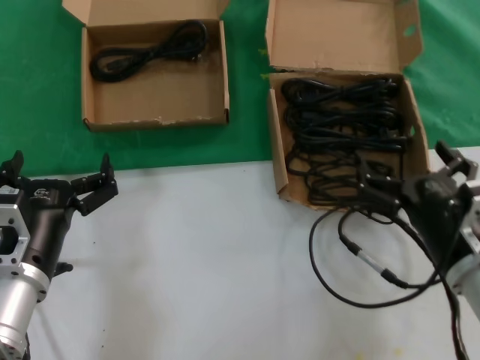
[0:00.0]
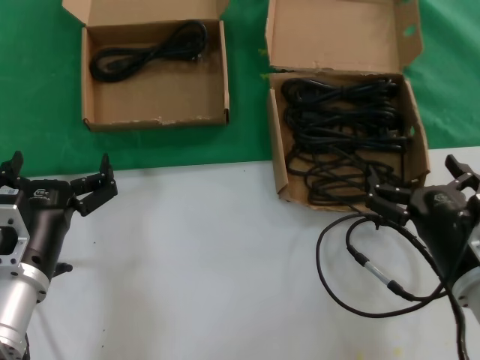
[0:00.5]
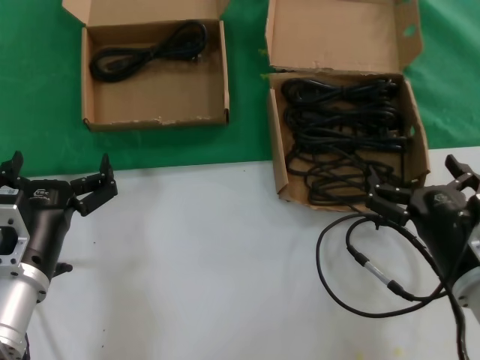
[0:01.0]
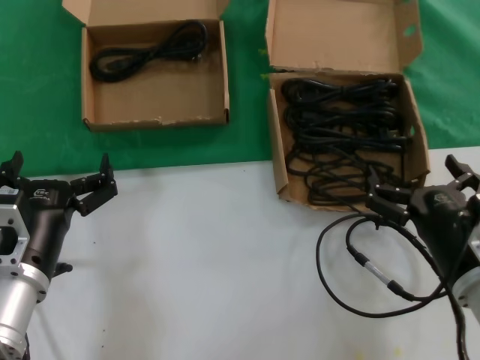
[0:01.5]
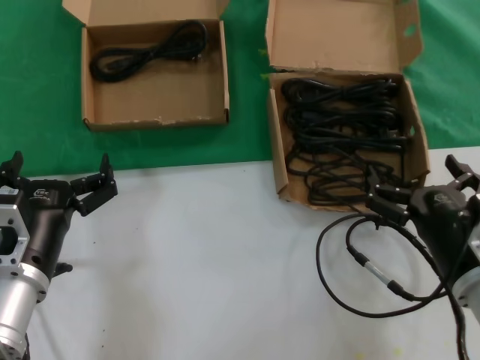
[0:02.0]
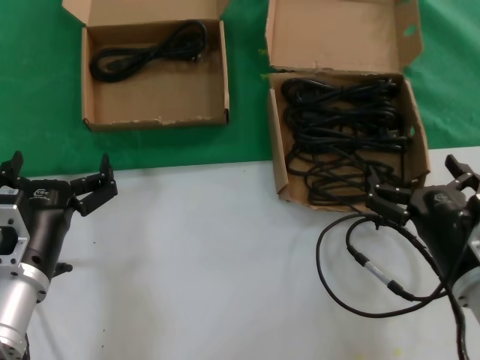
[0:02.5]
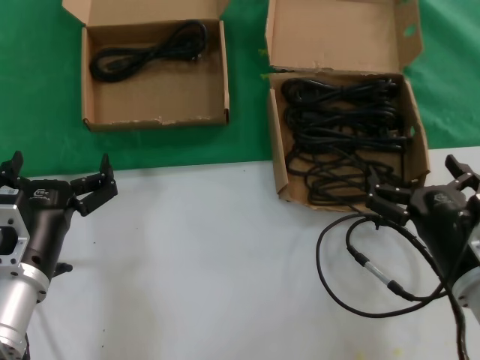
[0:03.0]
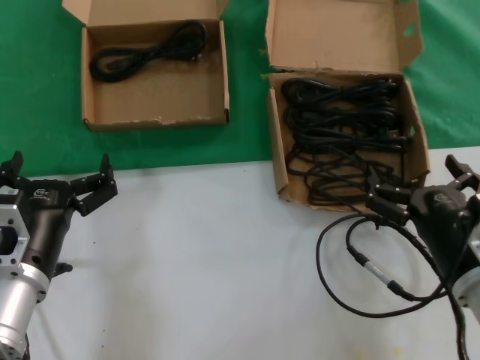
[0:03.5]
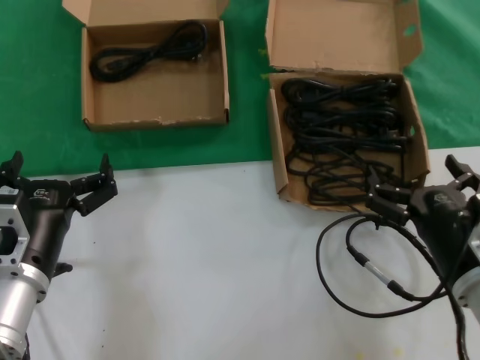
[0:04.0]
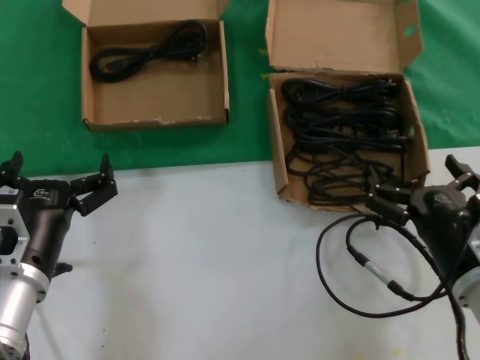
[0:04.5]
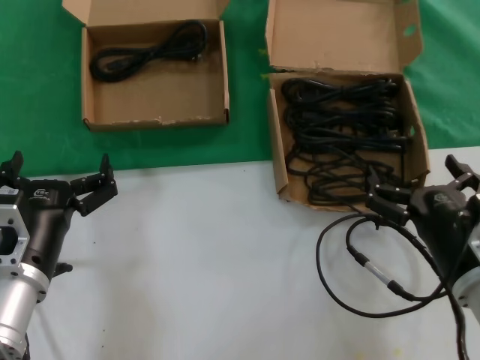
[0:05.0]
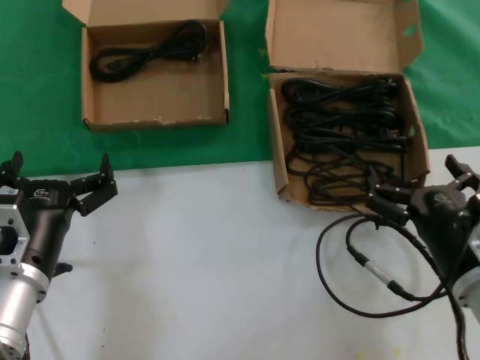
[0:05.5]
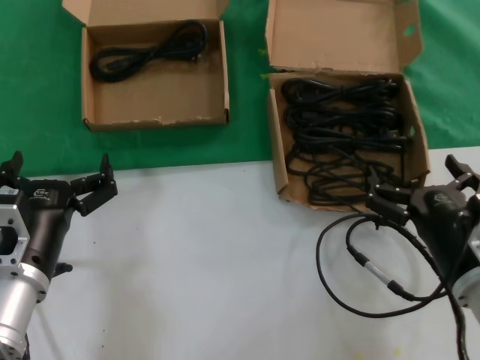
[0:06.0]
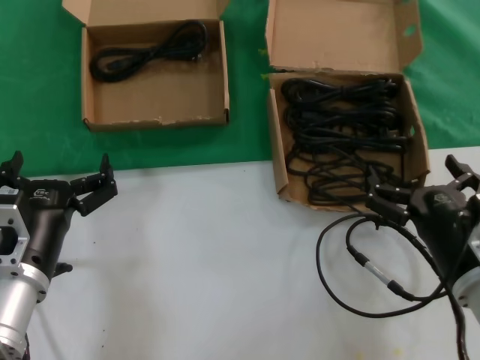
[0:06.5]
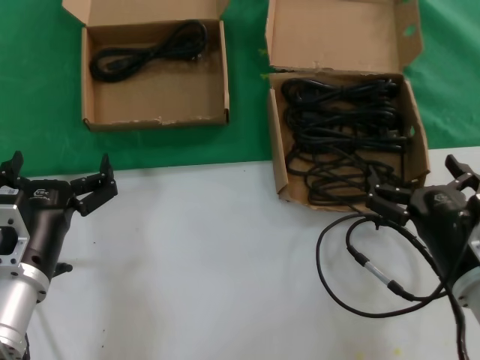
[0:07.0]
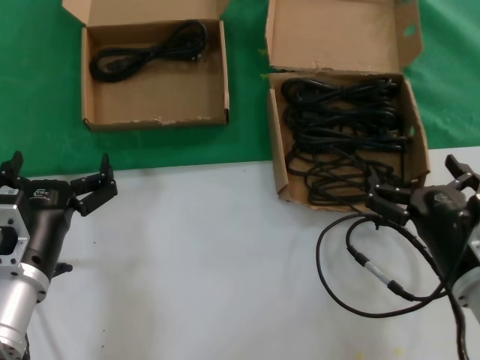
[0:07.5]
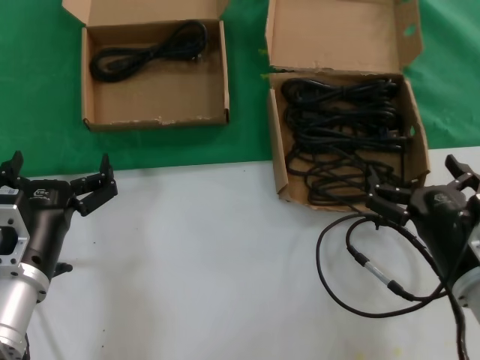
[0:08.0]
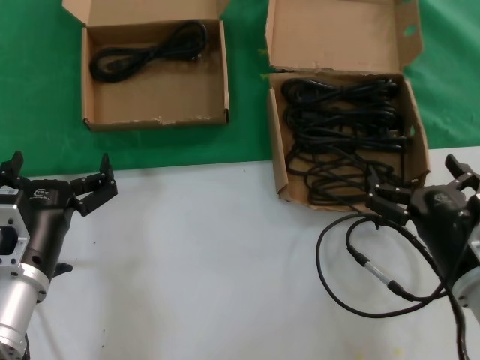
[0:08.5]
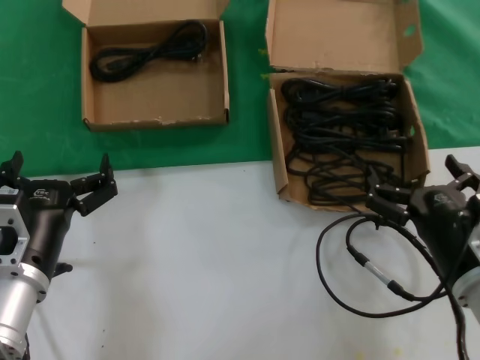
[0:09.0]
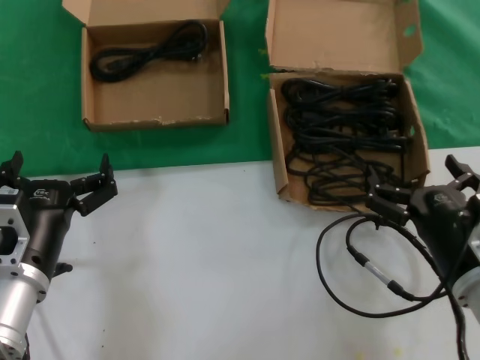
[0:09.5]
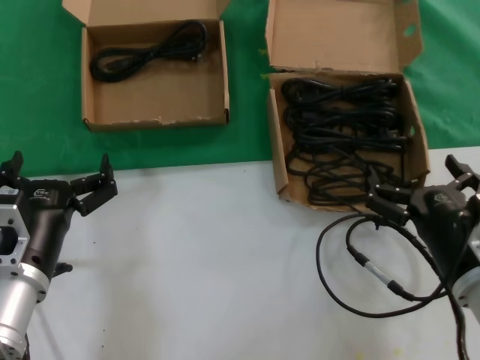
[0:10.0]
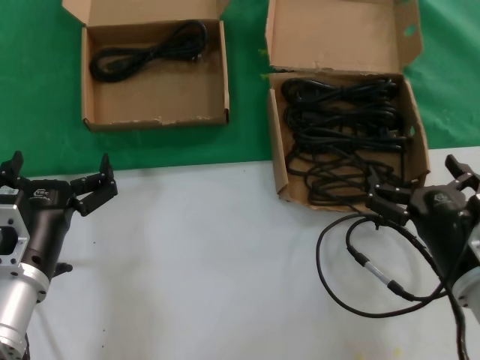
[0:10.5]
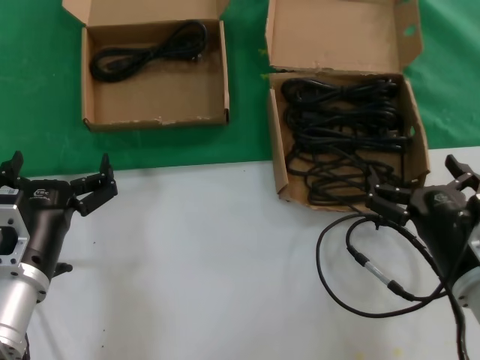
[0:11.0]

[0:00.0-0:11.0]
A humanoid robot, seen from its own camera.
Task of the whole recording: take the parts from the box containing them and put them into an empty box.
0:00.0 to 0:02.0: The hands move only a little.
0:02.0 to 0:11.0: Both hands stay put.

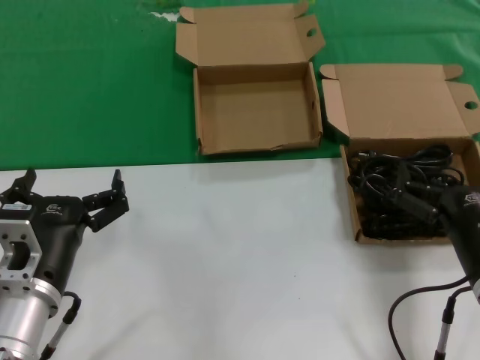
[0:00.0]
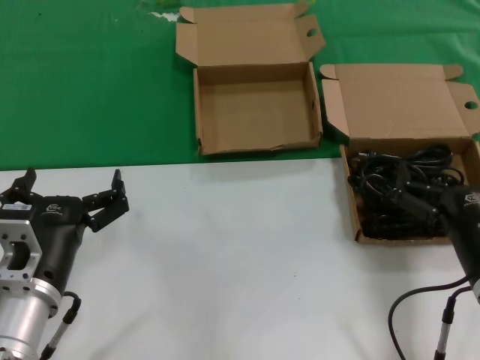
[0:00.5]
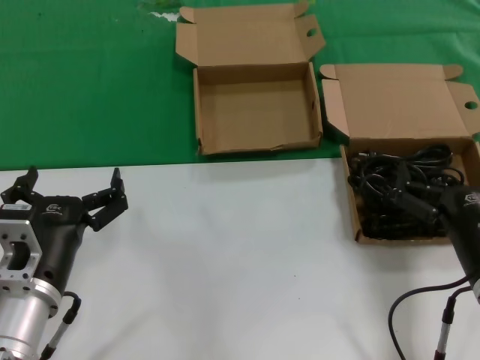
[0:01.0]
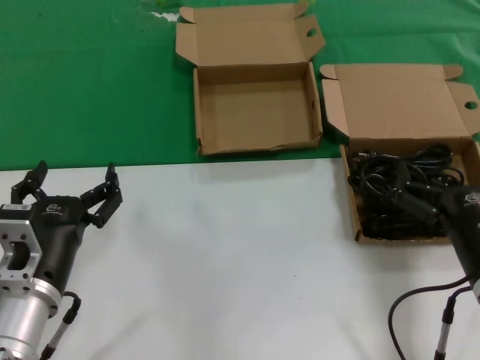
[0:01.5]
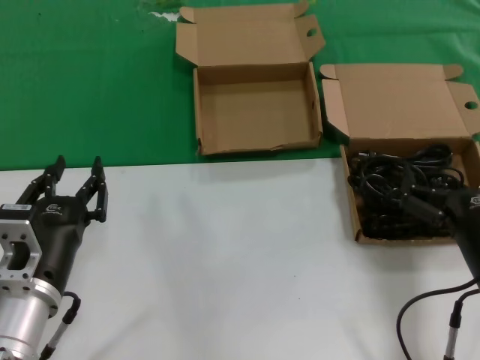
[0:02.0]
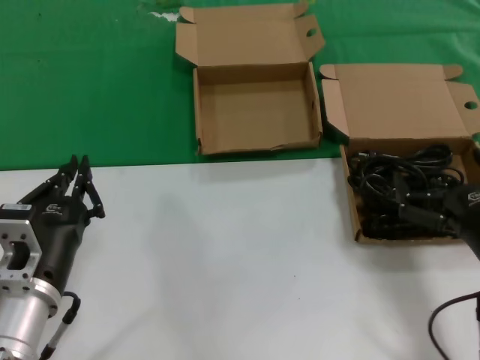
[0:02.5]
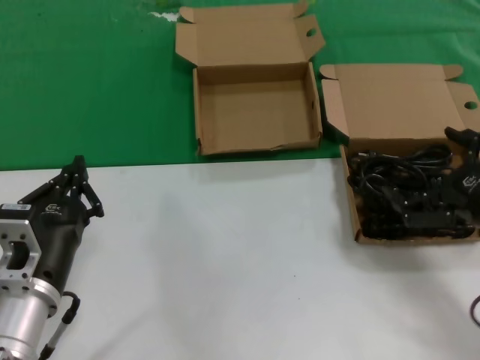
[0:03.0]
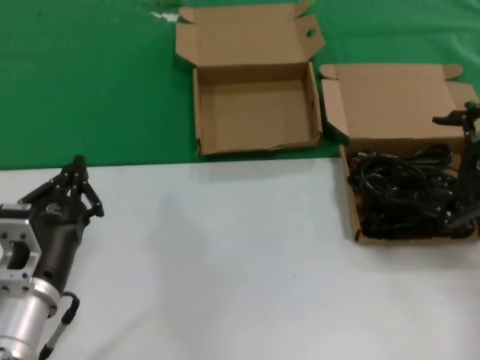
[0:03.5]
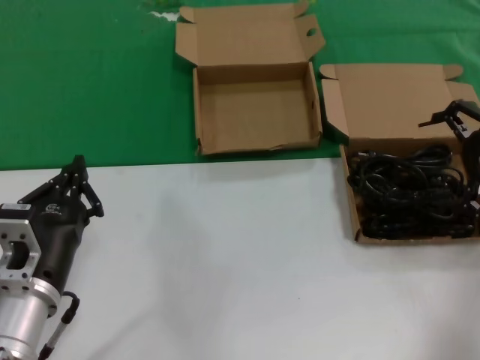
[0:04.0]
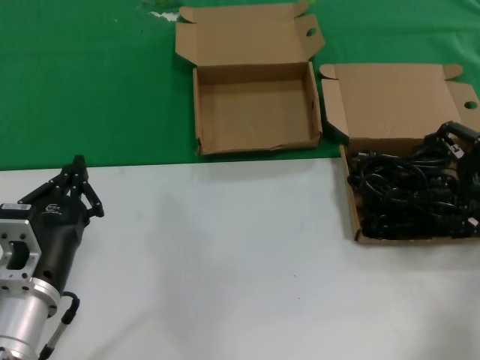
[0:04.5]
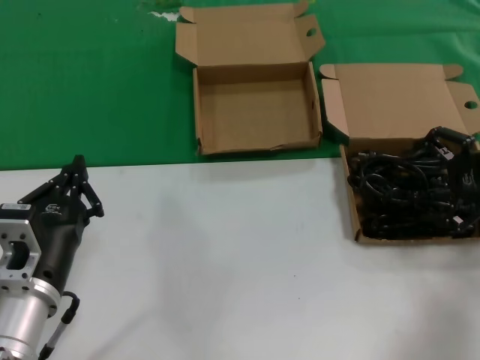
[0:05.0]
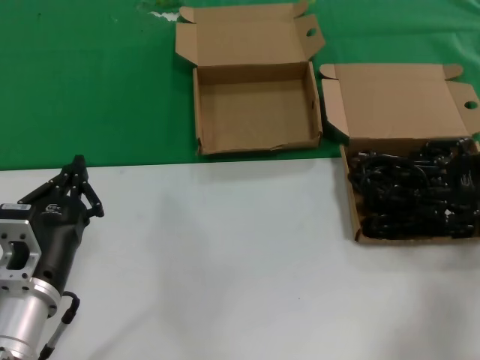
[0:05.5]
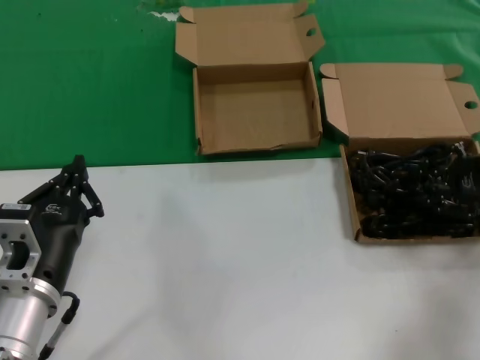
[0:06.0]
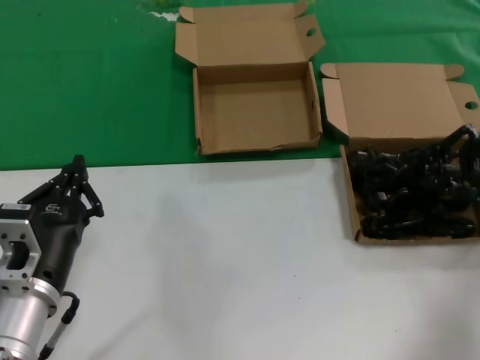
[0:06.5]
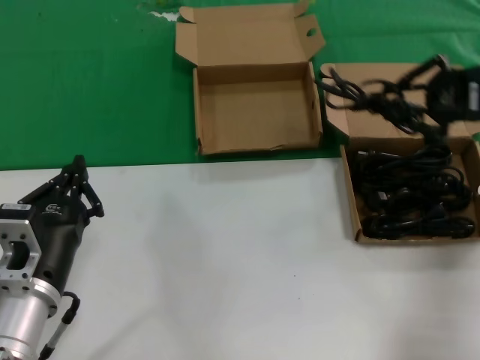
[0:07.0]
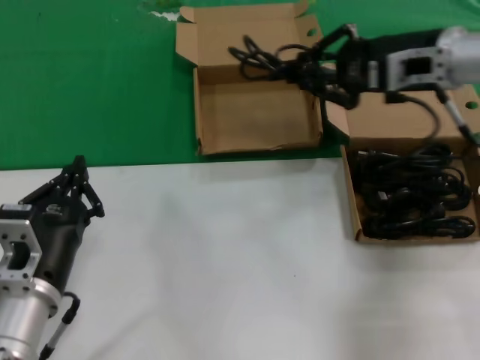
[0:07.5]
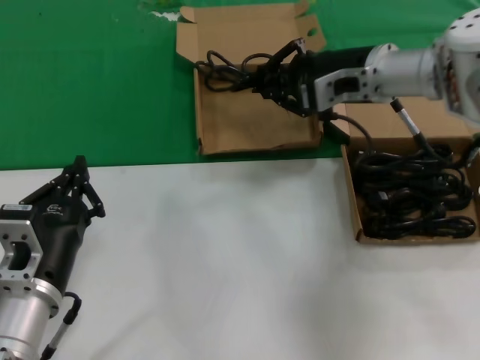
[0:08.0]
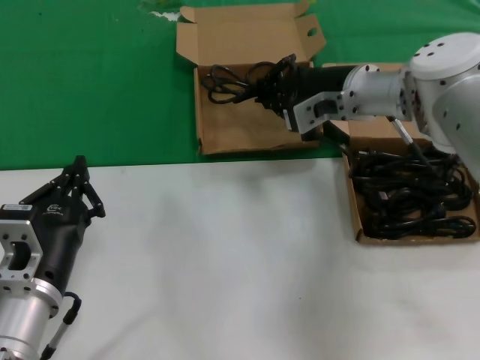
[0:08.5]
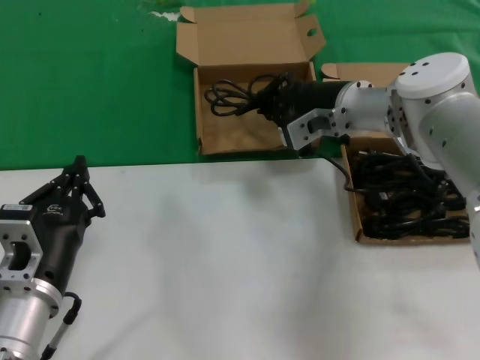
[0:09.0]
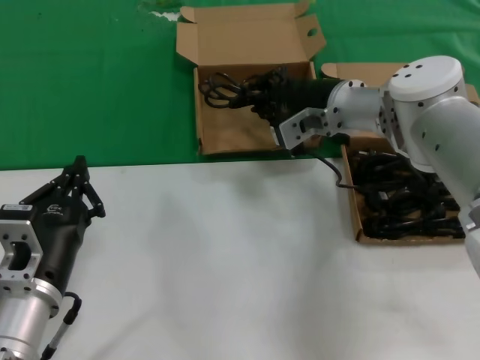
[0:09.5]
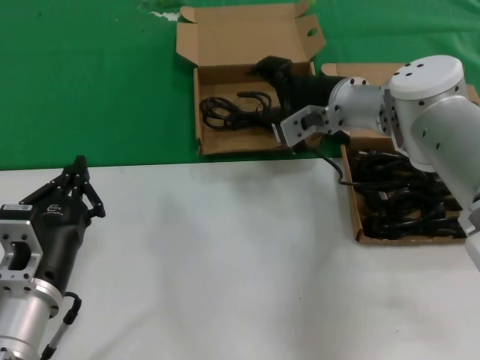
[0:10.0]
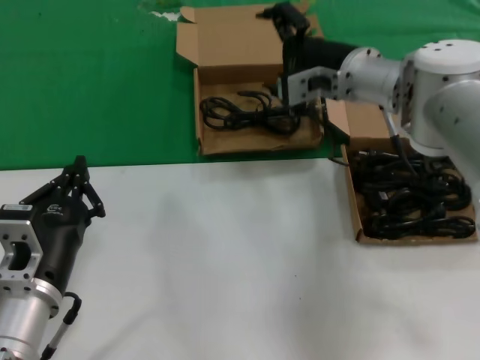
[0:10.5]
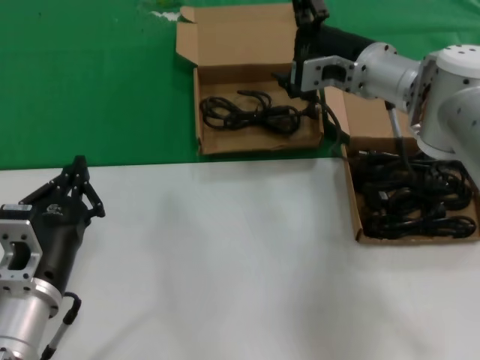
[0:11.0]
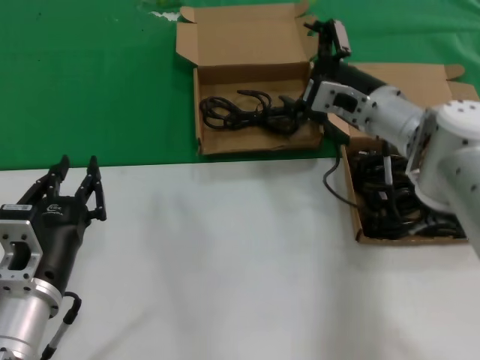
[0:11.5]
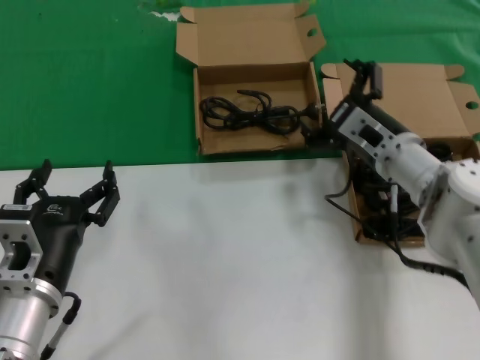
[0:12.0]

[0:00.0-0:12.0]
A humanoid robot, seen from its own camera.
Task of the whole recording: take the parts from the box containing them and put them into an empty box.
Step, 0:00.0 to 0:06.0: Grasp the data cable.
Step, 0:06.5 to 0:09.5: Place the data cable in the another box.
0:00.0 to 0:02.0: The two hands keep their place.
0:02.0 to 0:04.0: The right hand is displaced upward, forward and to the right by approximately 30 cm.
0:04.0 to 0:06.0: The right hand shifts about 5 cm downward.
0:06.0 to 0:08.0: The right hand travels to the left by approximately 25 cm.
0:08.0 to 0:10.0: The right hand heads downward, covering roughly 5 cm.
0:10.0 to 0:12.0: The right hand heads downward, backward and to the right, covering approximately 10 cm.

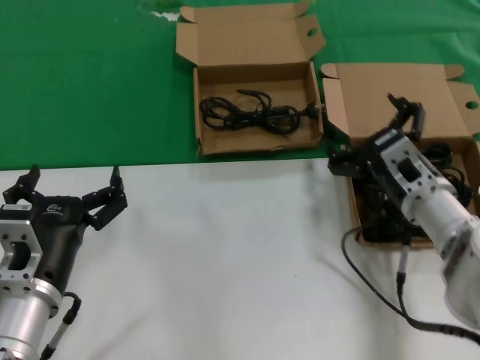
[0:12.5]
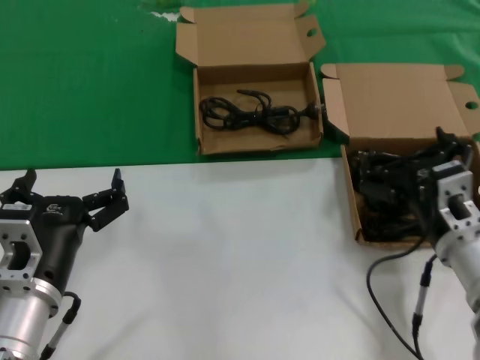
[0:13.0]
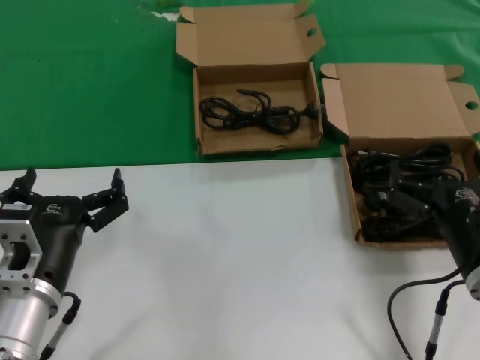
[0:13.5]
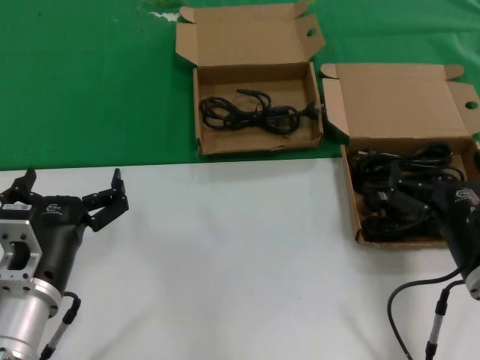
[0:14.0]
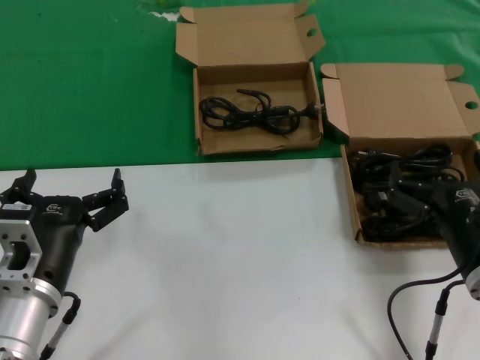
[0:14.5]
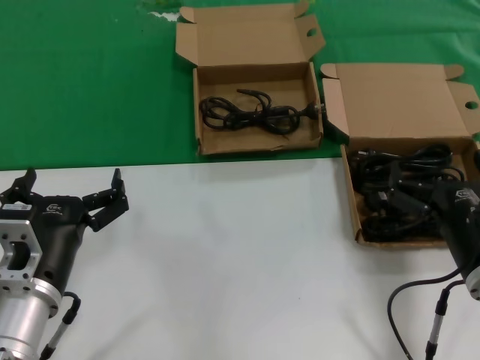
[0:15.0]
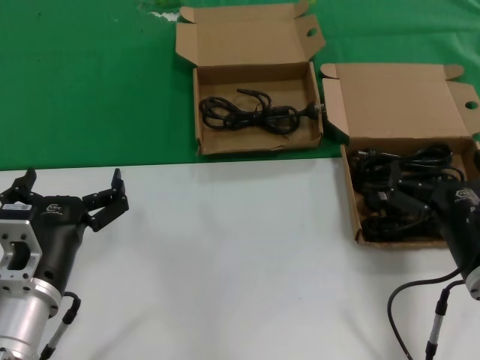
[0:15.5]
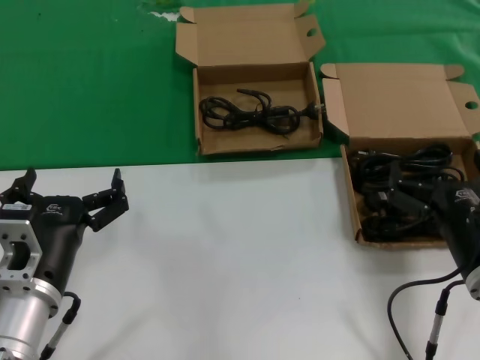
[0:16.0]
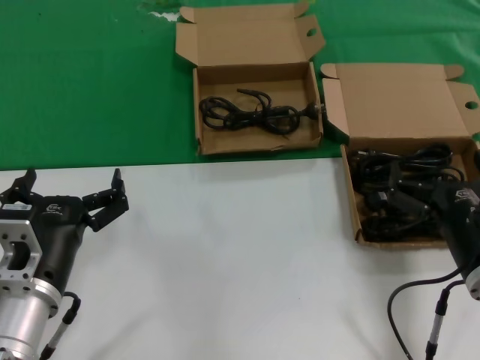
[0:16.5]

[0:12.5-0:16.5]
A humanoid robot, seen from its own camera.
Task of the whole recording: take the parts from the box containing them and put them into an empty box.
0:12.5 to 0:14.5: The right hand is displaced backward by some 15 cm.
0:14.5 to 0:16.5: Neither hand changes place.
